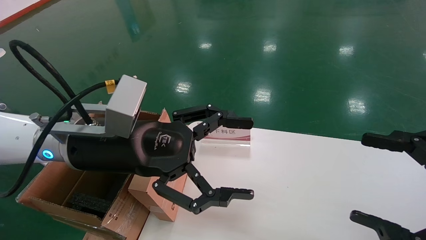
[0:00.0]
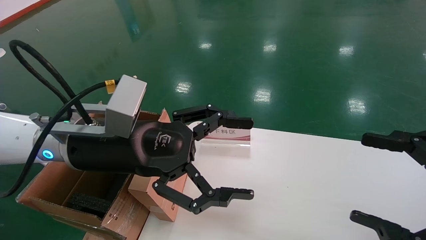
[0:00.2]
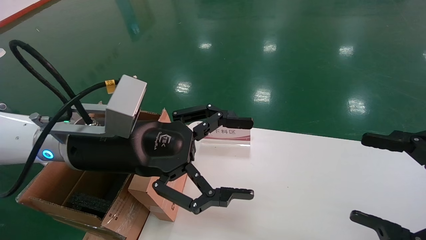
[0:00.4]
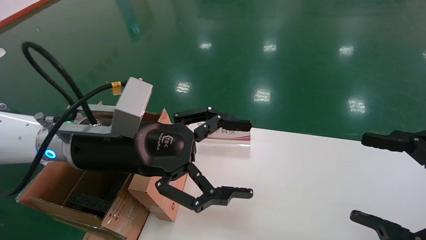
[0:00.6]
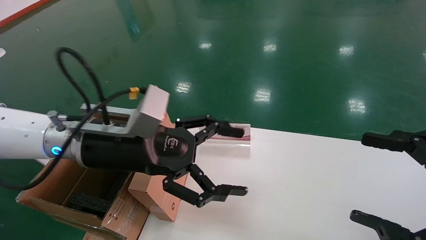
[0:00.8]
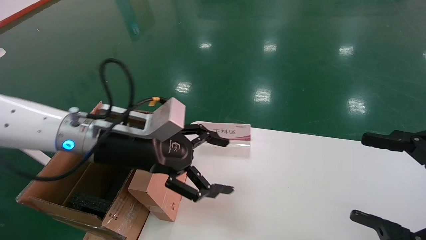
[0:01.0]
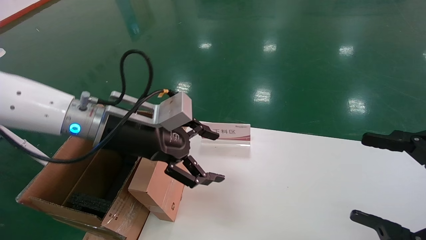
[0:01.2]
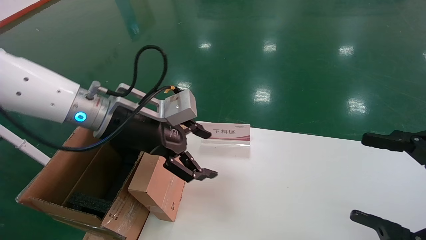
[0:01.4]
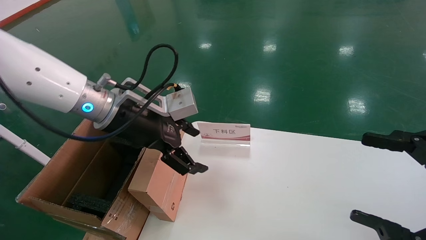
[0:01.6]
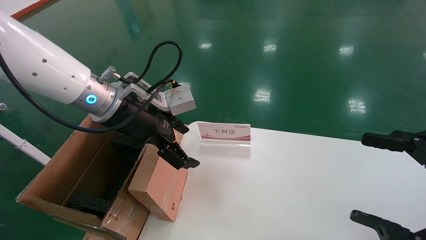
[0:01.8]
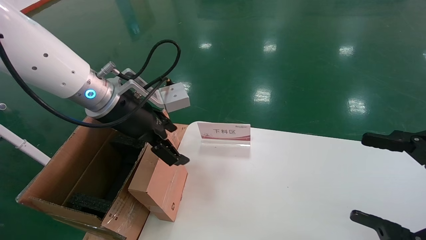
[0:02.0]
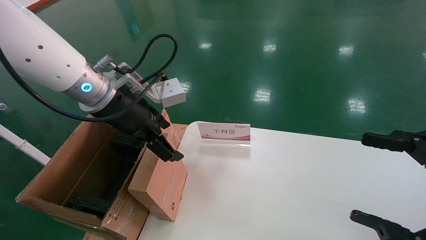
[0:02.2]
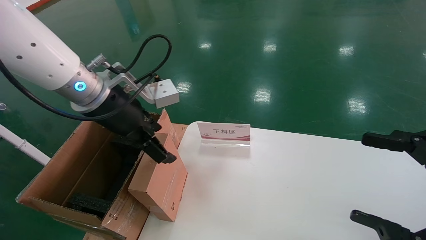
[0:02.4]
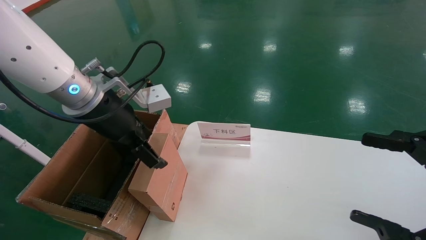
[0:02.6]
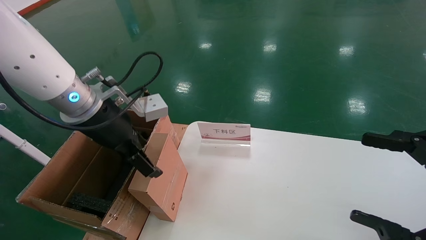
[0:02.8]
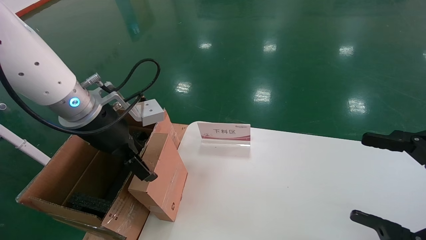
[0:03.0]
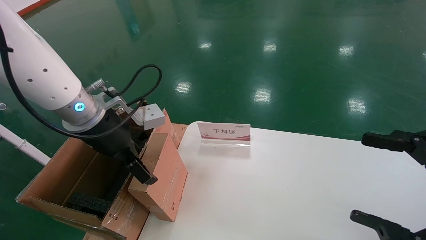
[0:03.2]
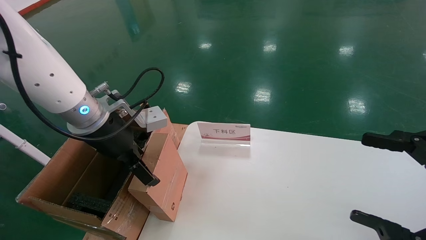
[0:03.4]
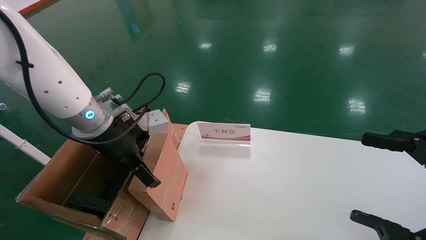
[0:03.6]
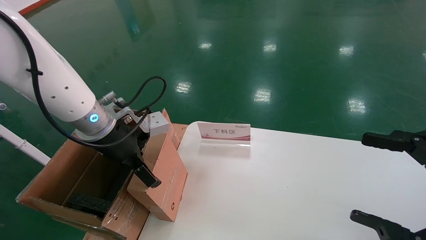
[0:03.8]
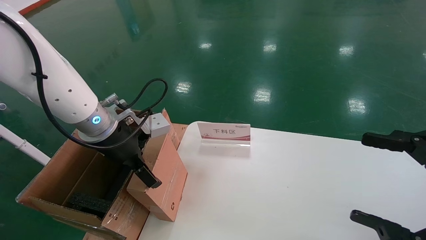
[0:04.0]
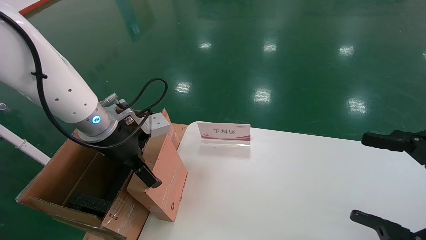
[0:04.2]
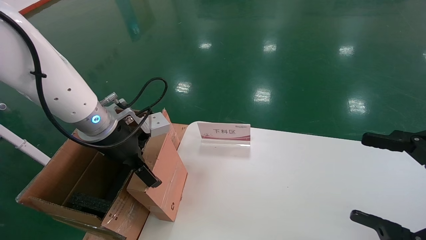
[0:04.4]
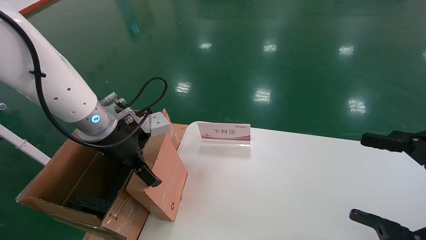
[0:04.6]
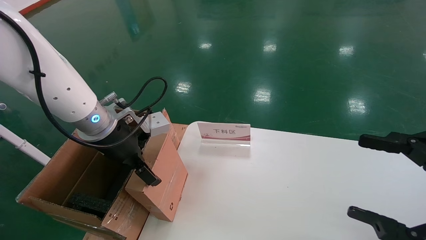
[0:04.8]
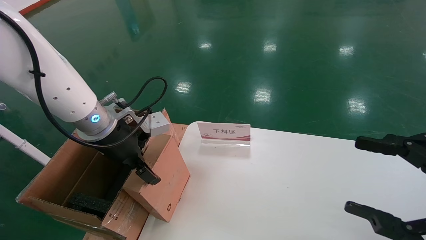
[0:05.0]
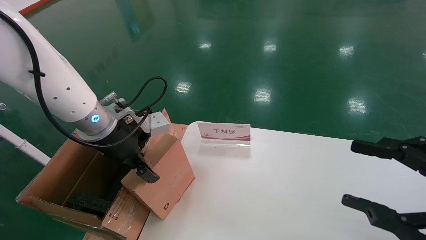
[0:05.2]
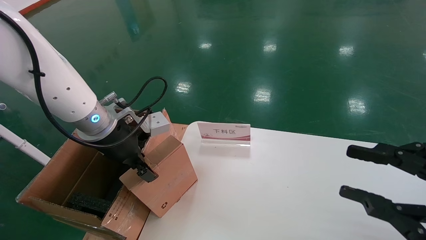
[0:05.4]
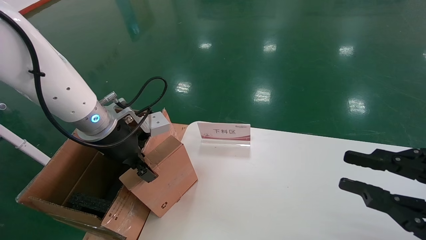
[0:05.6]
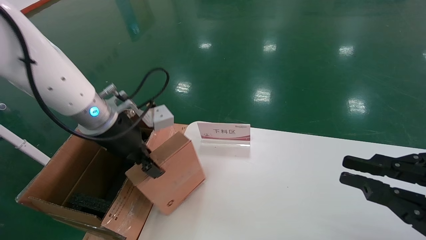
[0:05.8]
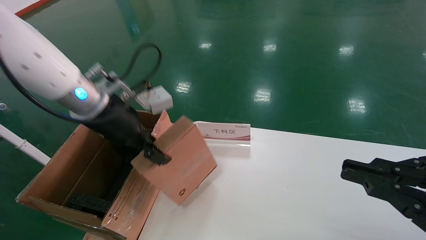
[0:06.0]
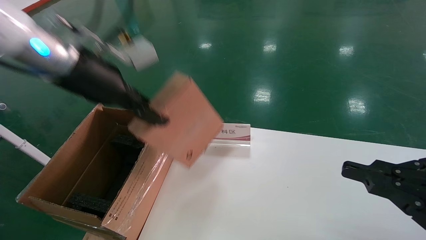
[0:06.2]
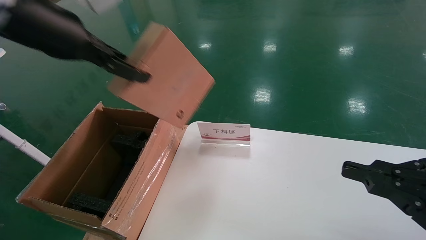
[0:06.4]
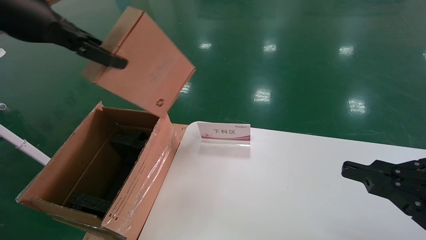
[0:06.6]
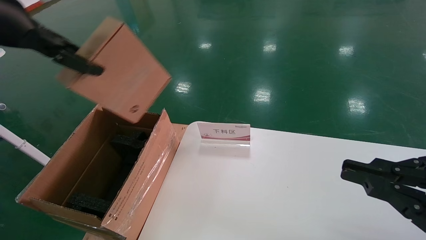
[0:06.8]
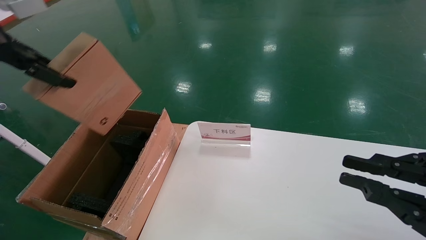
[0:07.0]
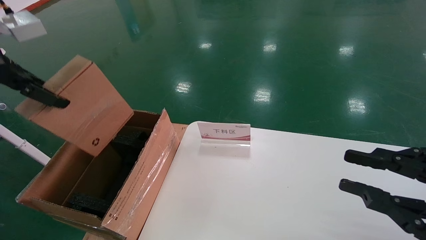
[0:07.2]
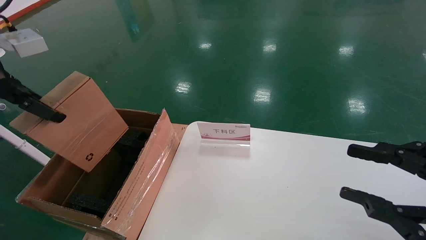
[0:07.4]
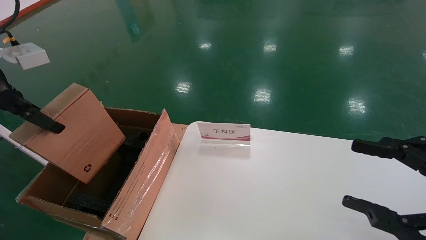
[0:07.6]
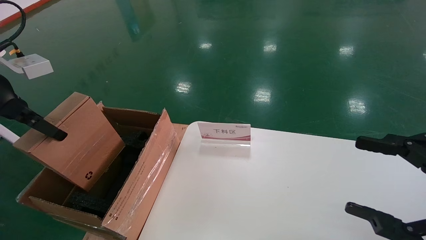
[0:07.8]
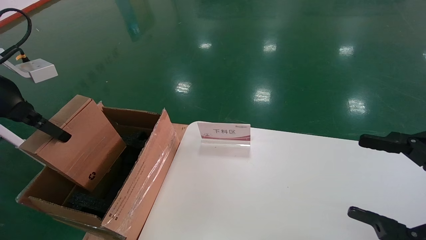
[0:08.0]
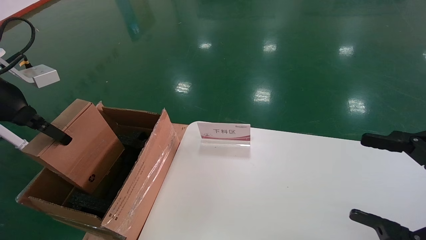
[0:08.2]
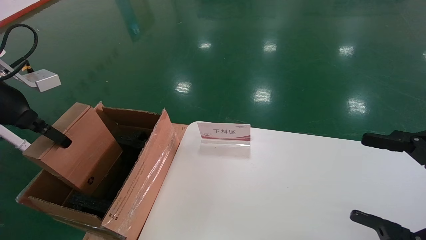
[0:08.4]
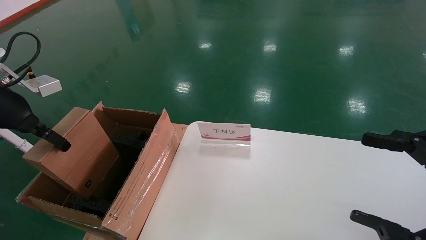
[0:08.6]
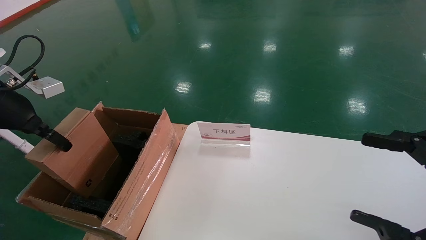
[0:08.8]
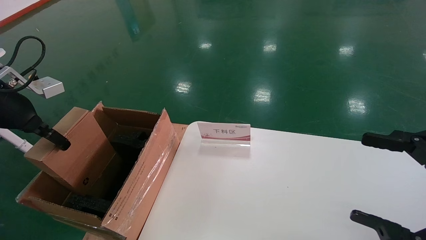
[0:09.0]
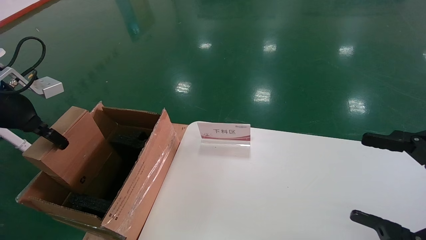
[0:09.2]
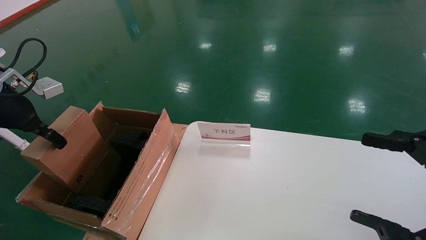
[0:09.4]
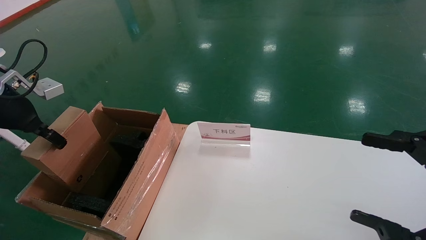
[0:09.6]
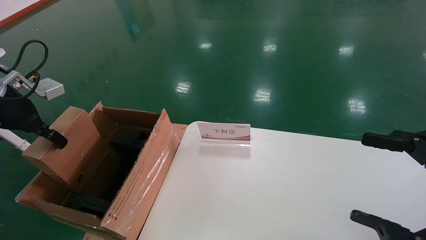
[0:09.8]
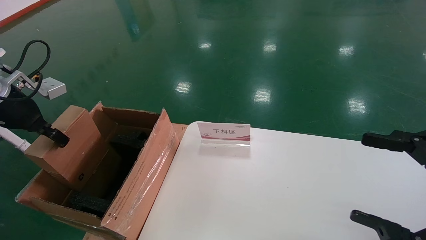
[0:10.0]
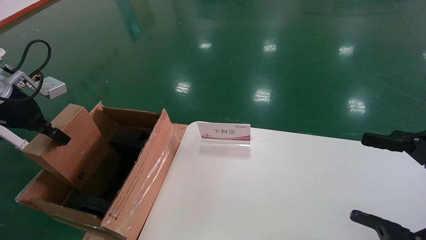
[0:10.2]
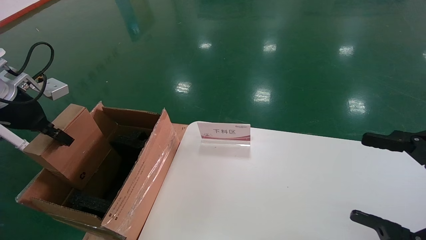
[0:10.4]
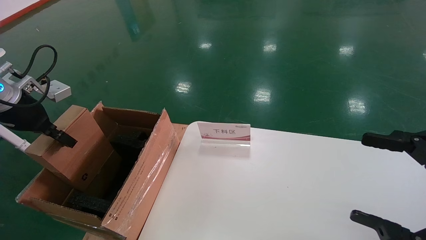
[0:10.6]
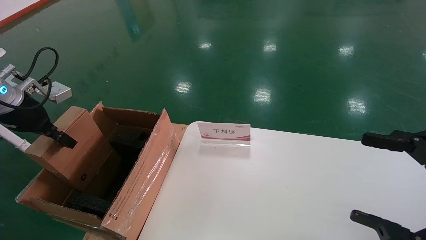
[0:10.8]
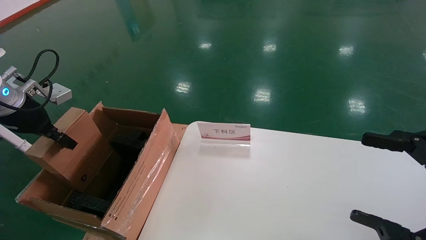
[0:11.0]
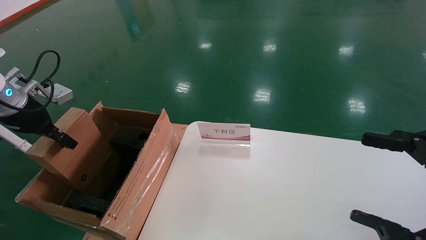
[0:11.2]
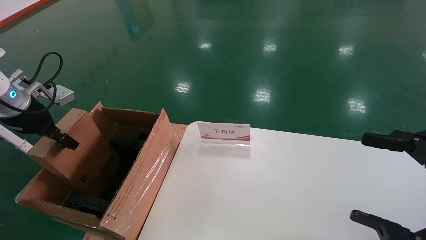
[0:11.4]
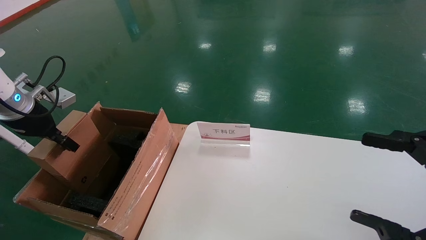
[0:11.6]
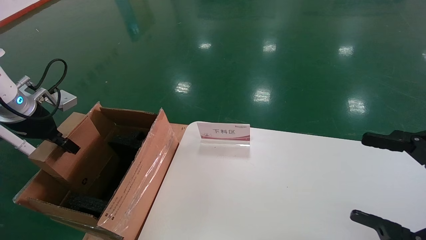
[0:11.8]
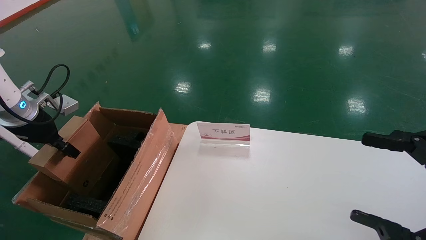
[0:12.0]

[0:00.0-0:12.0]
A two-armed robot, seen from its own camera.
Task of the whole recording: pick up the small cardboard box and load it into the large cardboard box.
Step, 0:01.0 to 0:05.2: Pick up the mouse and power cord box.
0:00.0 to 0:01.6: The left gripper goes about 5 cm forward.
0:03.0 to 0:04.4: There are only small adjustments of the grippers.
0:04.4 to 0:06.0: The right gripper closes up. The left gripper shifts approximately 5 cm upward, and closes its fingers.
0:06.0 to 0:07.6: The right gripper opens, while the left gripper heads to the left and backward, covering about 20 cm.
0:07.6 to 0:09.0: The right gripper opens. The left gripper shifts about 5 cm downward.
0:09.0 to 0:10.4: There are only small adjustments of the grippers.
0:10.4 to 0:12.0: The grippers make only small movements.

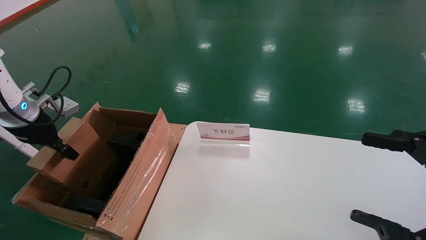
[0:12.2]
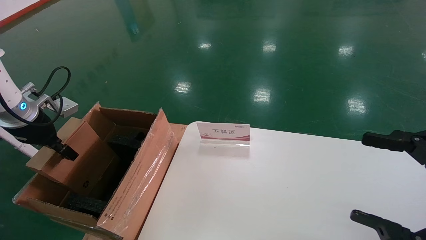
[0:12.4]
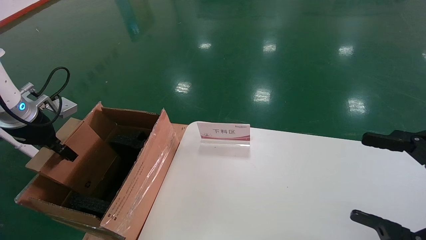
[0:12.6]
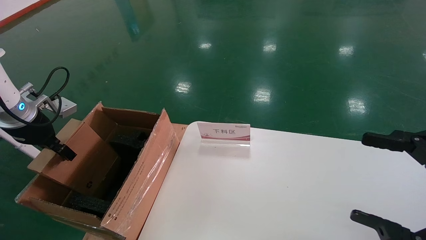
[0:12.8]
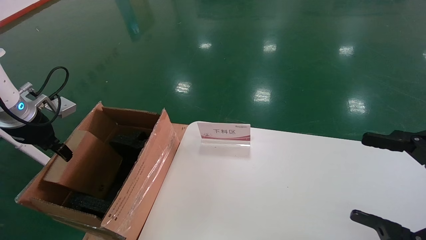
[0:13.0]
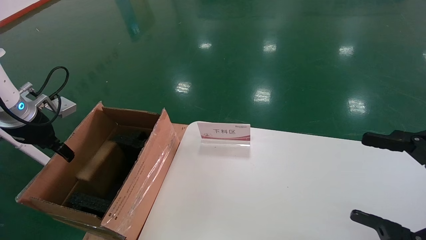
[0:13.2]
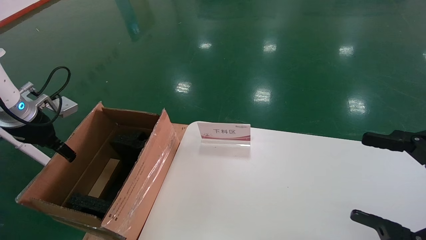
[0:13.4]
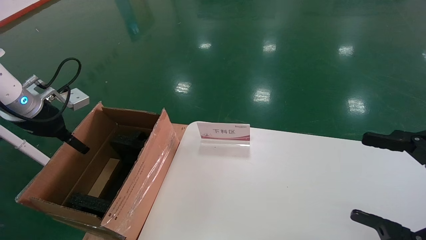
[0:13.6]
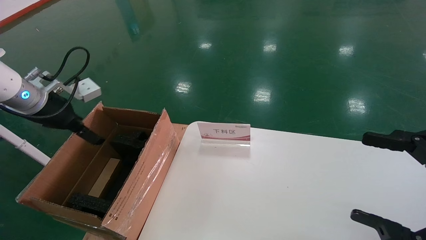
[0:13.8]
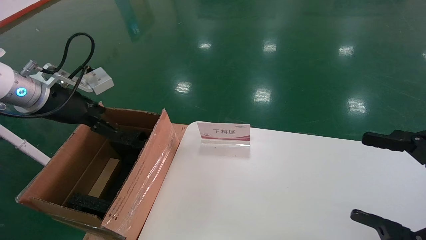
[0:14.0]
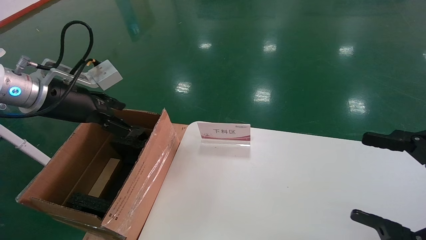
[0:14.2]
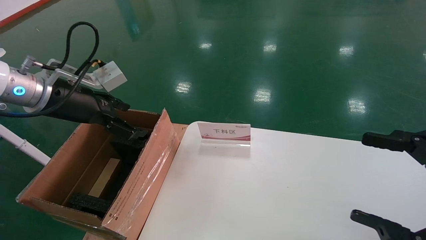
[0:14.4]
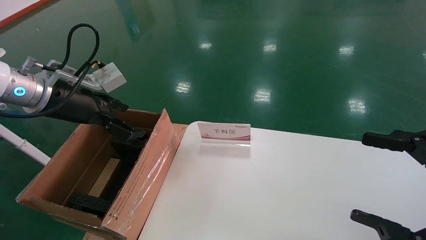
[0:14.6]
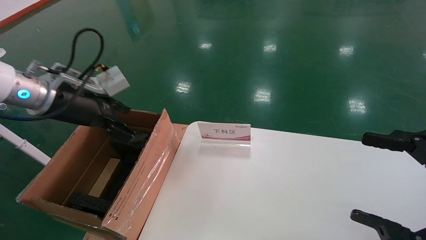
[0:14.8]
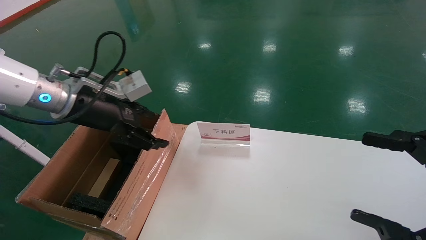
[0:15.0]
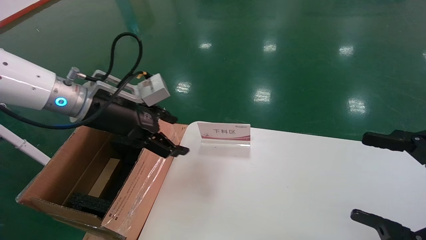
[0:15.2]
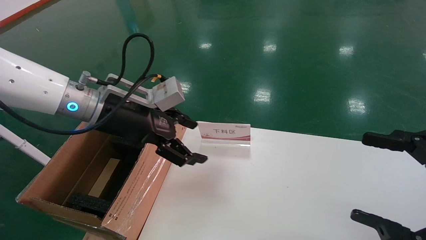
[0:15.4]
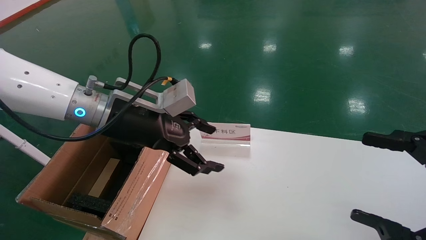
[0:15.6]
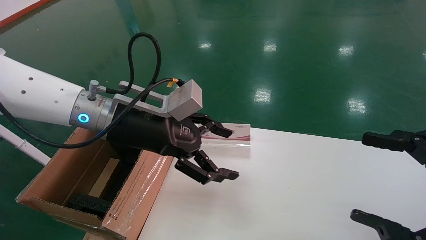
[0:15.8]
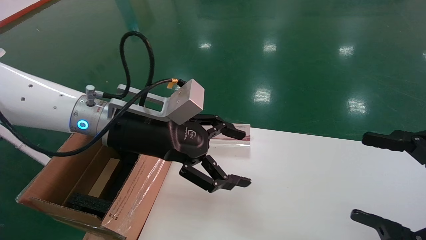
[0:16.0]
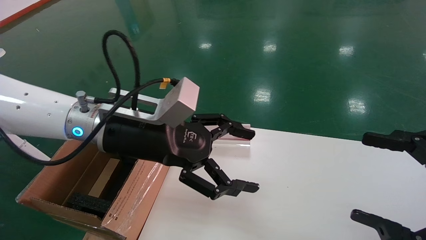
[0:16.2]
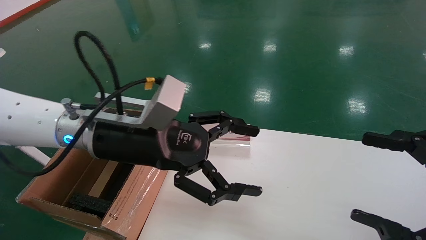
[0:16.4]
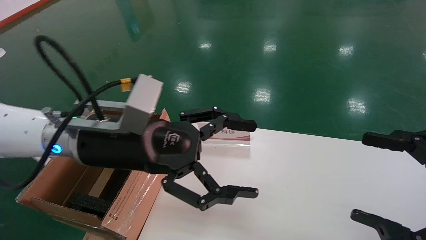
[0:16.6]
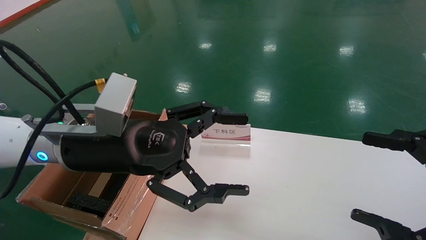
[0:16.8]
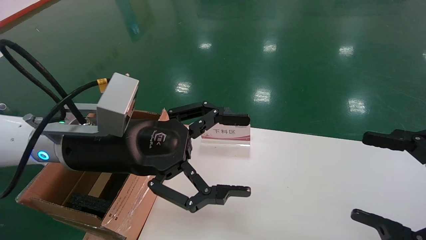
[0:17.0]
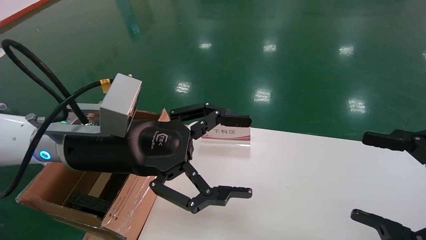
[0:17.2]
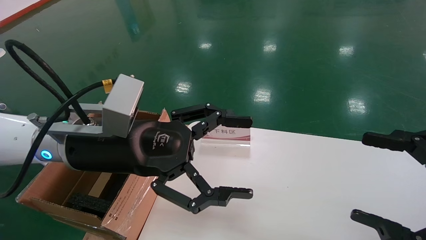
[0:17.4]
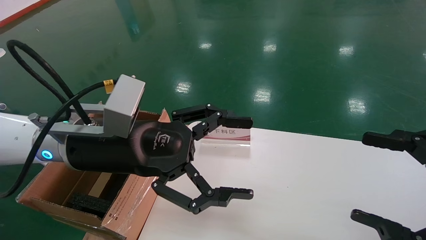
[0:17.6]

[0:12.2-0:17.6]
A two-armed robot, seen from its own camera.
Task of the whole recording: pick up the small cardboard box and load it into the large cardboard box.
0:12.2 to 0:13.6: The left gripper opens up.
0:13.6 to 0:15.0: The left gripper is displaced to the right by some 15 cm.
0:15.0 to 0:16.2: The left gripper goes roughly 10 cm to the right.
0:16.2 to 0:17.6: There are only small adjustments of the grippers.
